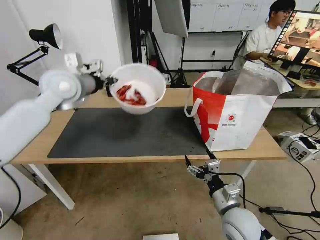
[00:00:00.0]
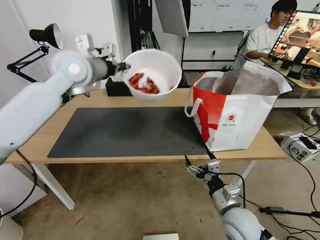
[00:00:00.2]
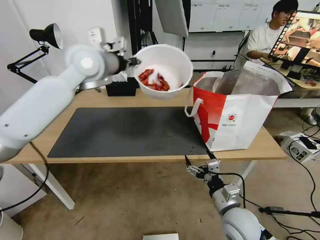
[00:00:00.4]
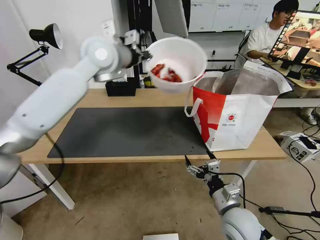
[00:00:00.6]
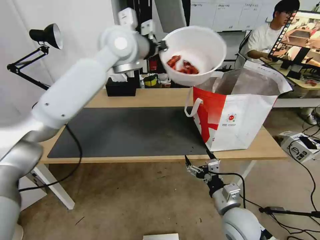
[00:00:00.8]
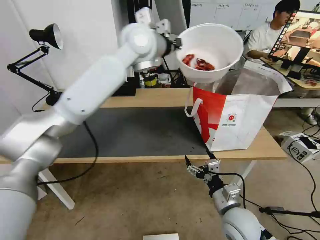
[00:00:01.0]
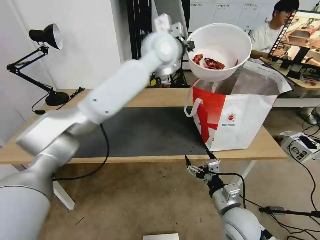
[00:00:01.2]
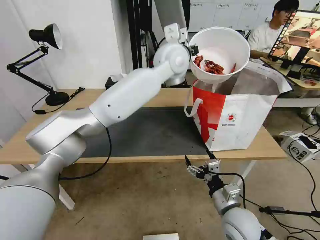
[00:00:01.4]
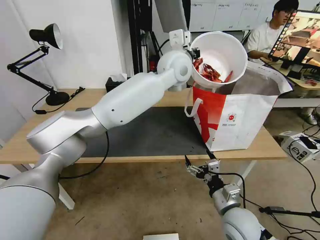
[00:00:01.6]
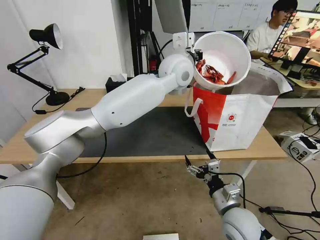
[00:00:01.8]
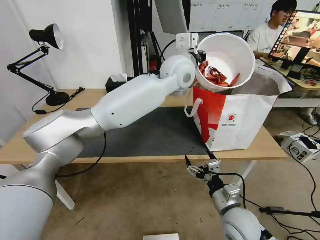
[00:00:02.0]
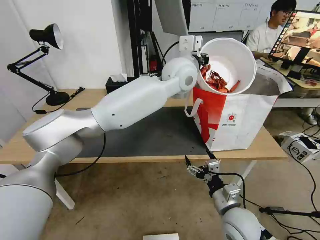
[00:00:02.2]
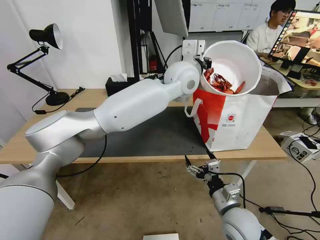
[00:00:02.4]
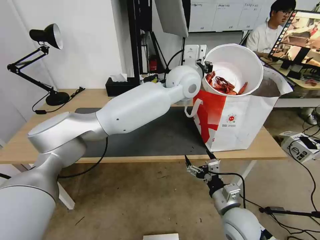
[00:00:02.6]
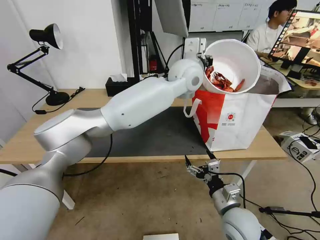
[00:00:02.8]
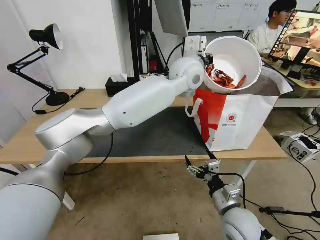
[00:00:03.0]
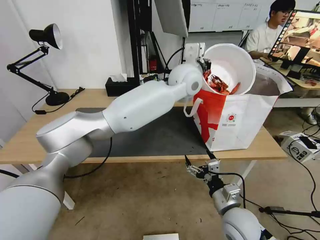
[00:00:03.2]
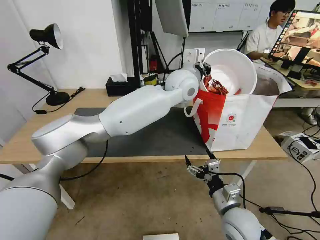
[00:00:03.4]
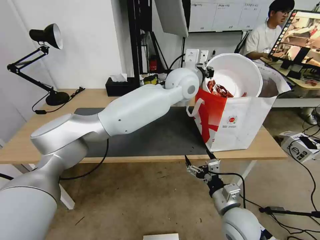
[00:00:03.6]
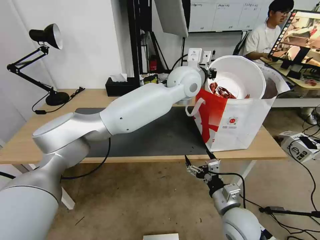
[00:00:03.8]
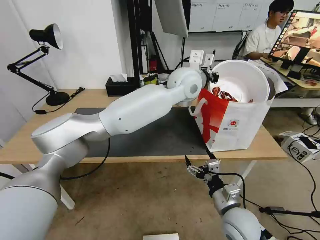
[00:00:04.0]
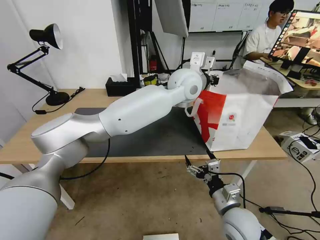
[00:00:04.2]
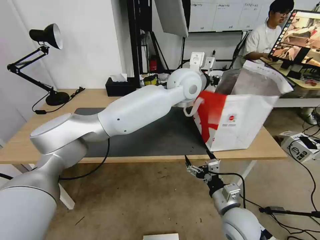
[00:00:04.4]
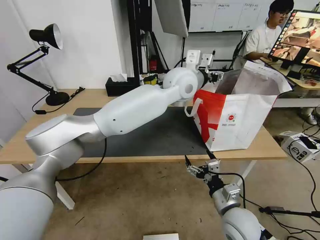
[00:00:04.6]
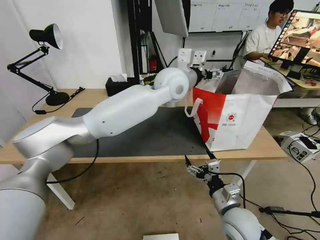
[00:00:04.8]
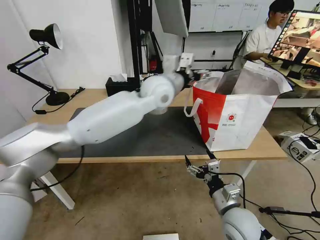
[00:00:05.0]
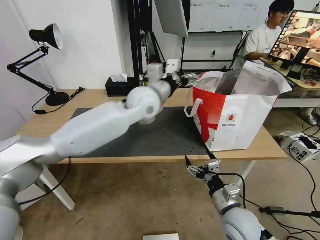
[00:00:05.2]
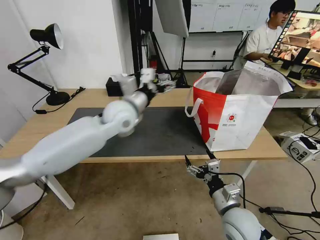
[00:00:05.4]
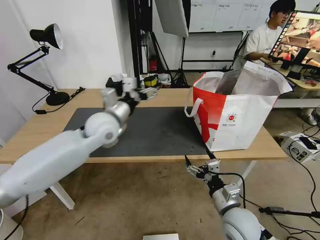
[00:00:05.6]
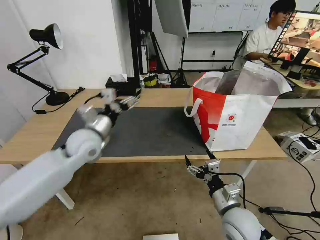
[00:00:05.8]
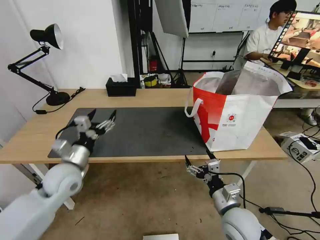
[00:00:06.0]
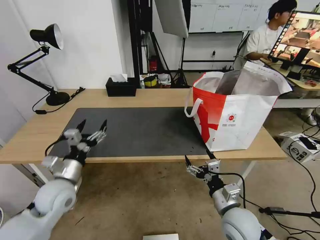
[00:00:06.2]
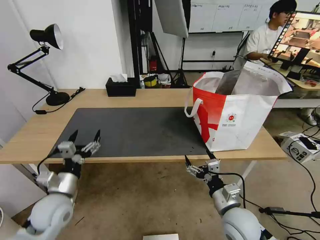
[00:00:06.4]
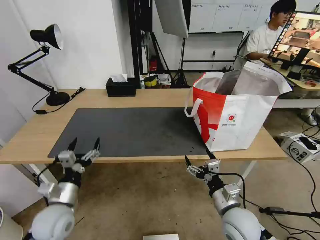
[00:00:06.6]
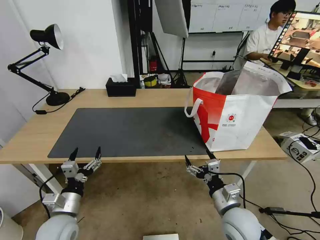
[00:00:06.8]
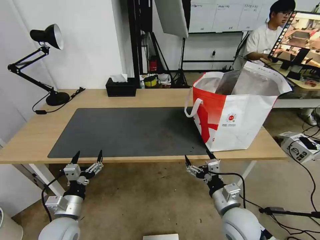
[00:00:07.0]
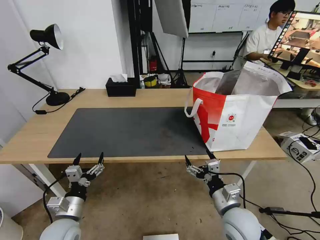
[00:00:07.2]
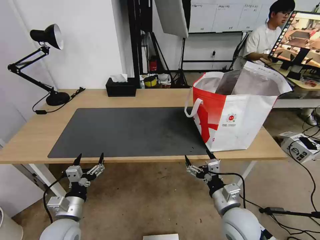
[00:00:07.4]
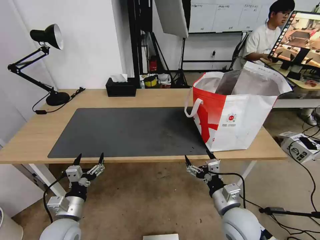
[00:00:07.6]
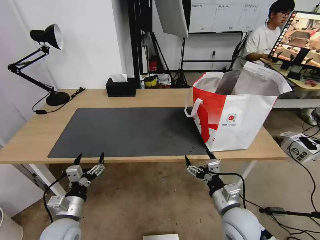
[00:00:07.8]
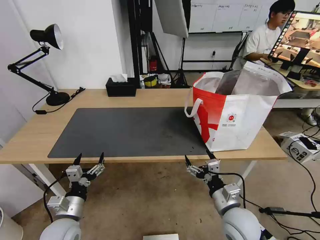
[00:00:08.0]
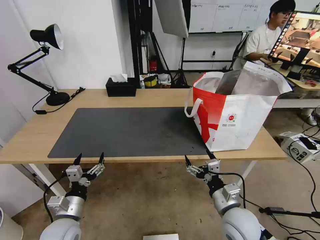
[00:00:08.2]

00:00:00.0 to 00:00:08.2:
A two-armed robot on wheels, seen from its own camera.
Task of the whole recording: Pick up the trash from the table and place it into the takeout bag.
00:00:00.0 to 00:00:01.6: The left gripper moves to the right, about 30 cm.
00:00:01.6 to 00:00:03.2: The grippers move only a little.
00:00:03.2 to 00:00:05.0: The left gripper shifts about 10 cm to the left, and opens up.
00:00:05.0 to 00:00:06.6: The left gripper goes roughly 50 cm to the left, backward and downward.
00:00:06.6 to 00:00:08.2: The grippers make only small movements.
